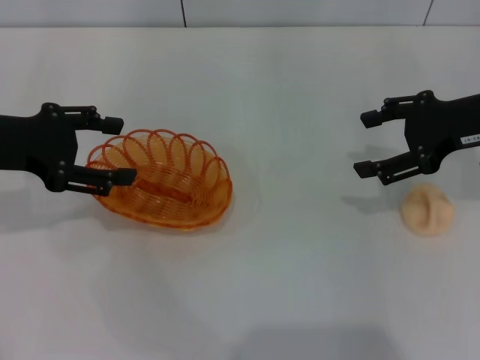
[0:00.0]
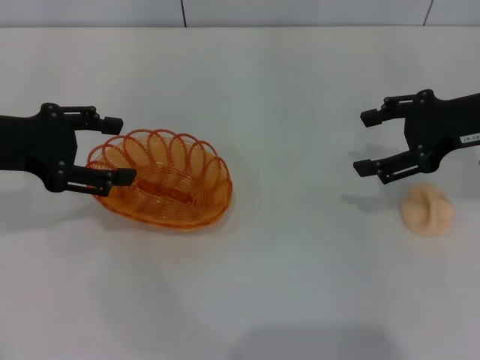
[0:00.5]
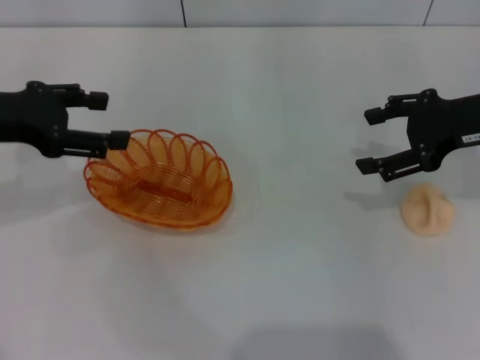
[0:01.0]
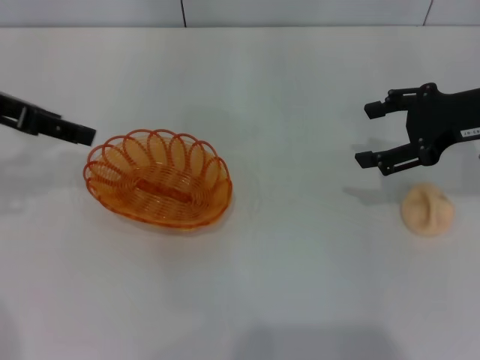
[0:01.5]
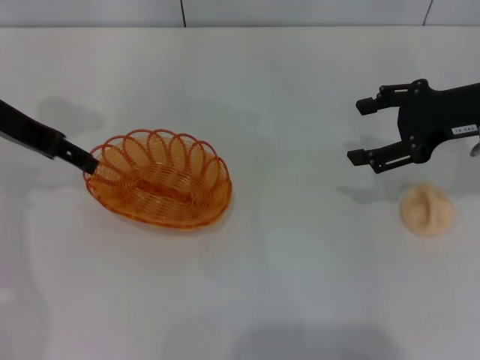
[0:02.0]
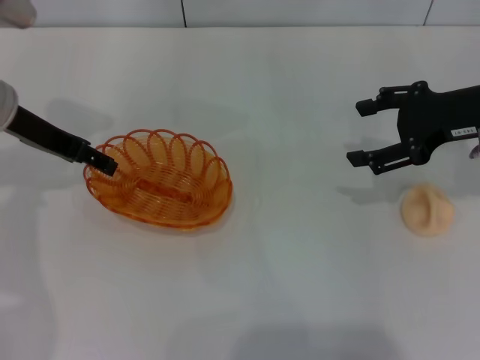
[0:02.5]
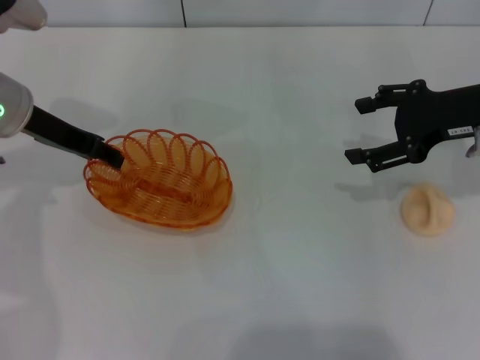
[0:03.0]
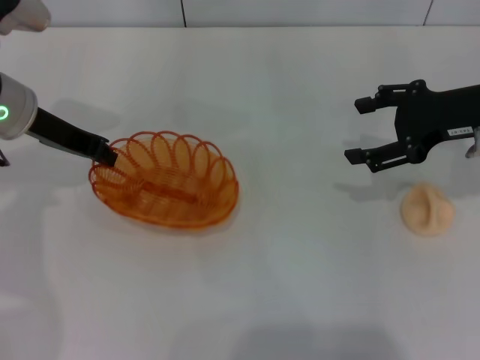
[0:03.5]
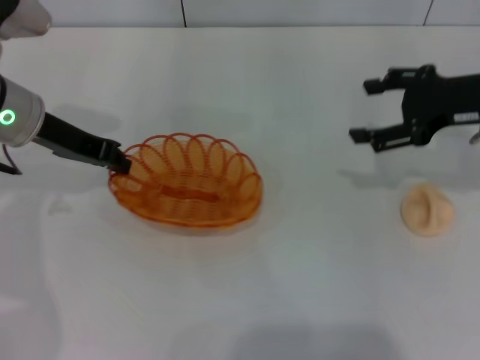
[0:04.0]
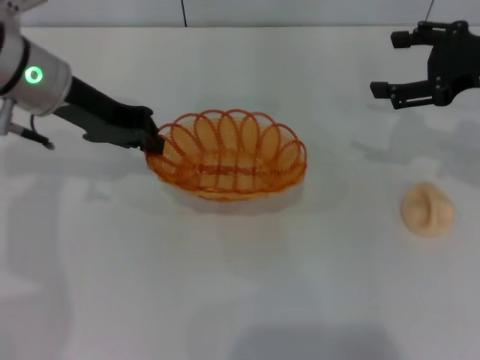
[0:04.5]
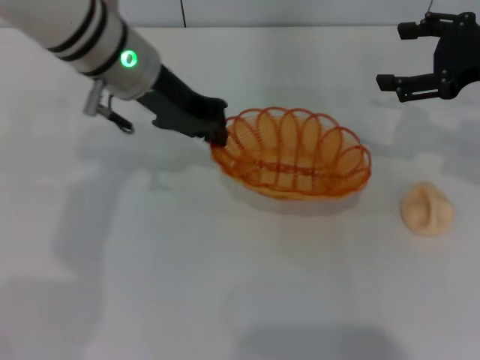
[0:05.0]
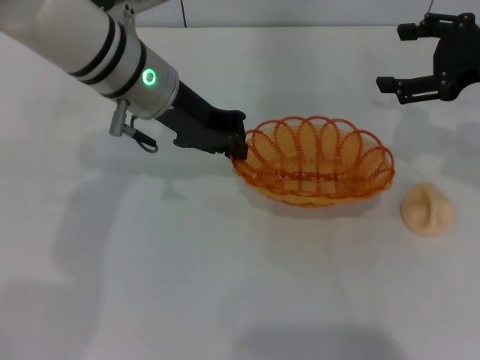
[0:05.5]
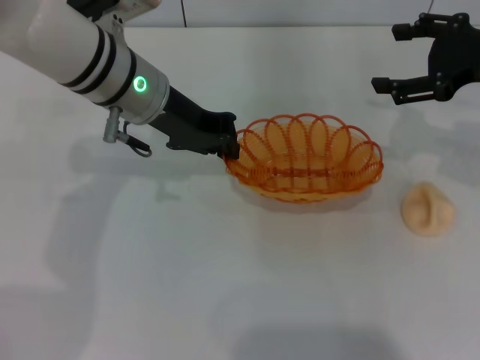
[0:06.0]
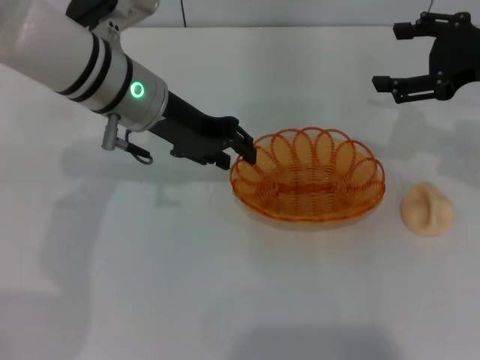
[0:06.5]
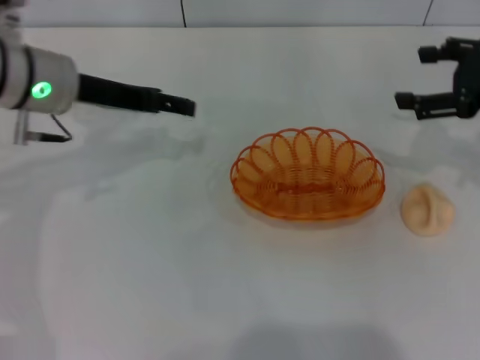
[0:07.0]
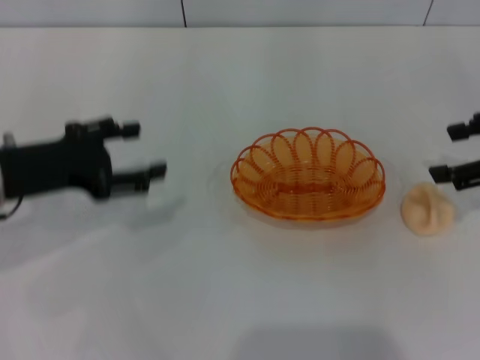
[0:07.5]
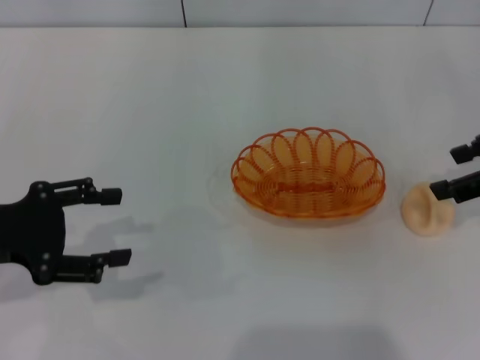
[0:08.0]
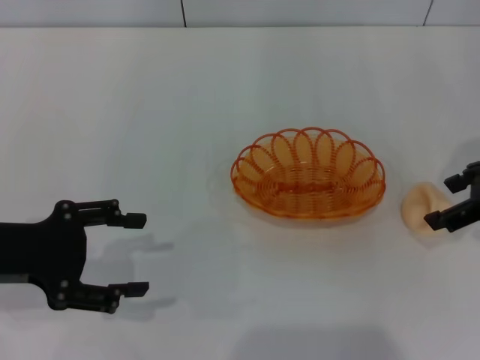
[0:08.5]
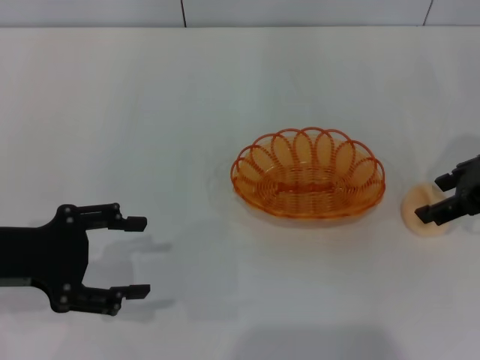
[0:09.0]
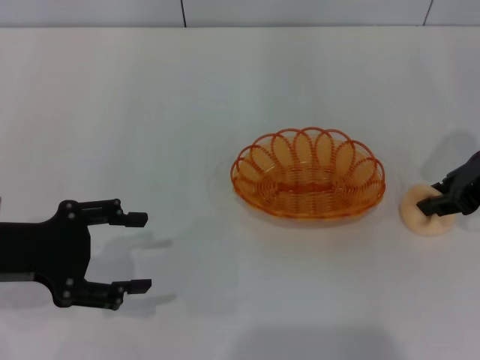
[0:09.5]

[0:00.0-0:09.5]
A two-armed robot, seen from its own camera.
Step, 0:00.0 to 0:04.0: Pick up the basket with the left gripper.
Step, 0:04.5 to 0:06.5: Place the basket in the center of view with the left gripper.
0:00.0 to 0:02.0: The left gripper heads forward, covering roughly 5 cm.
0:02.0 to 0:04.0: The left gripper shifts by some 5 cm, and closes its fingers.
0:04.0 to 0:05.5: The left gripper travels to the right by about 10 cm.
0:05.5 to 0:07.5: The right gripper goes about 5 cm backward. Meanwhile the left gripper travels to the left and backward by some 20 cm, and opens up.
0:07.5 to 0:09.5: The left gripper shifts roughly 5 cm backward; the right gripper changes place by some 5 cm, and closes.

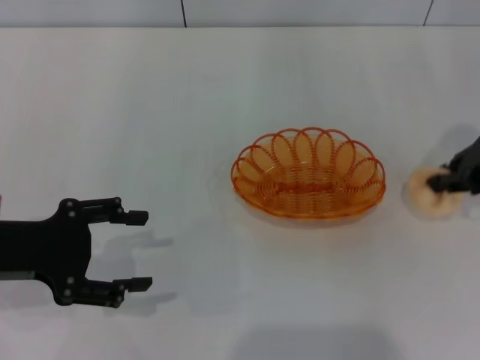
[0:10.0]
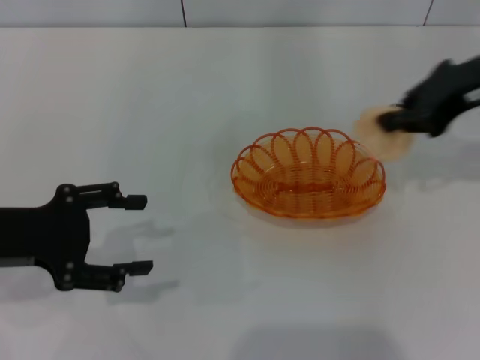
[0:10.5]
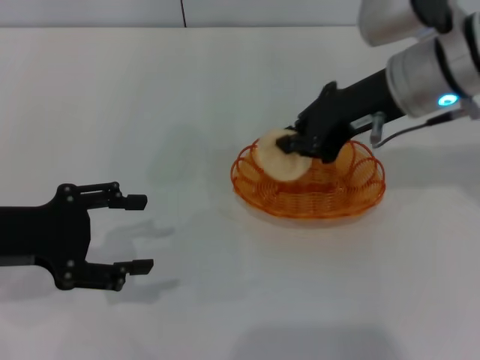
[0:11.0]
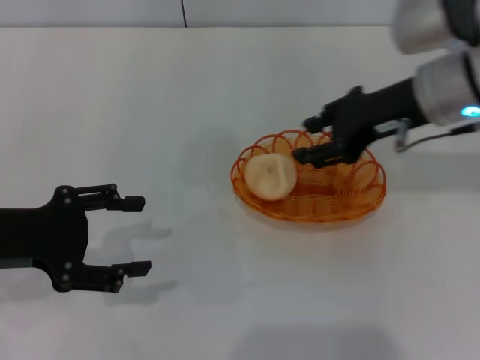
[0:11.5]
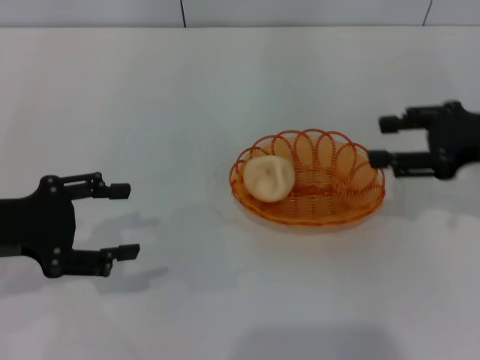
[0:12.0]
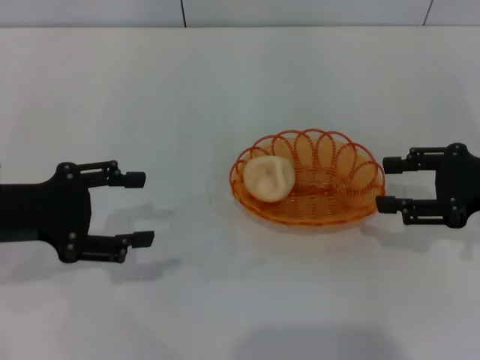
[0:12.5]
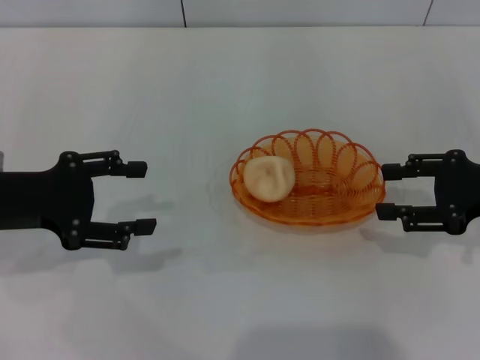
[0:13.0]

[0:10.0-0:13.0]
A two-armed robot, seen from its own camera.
Step, 0:10.5 to 0:12.0: Place the egg yolk pastry into the basket with the right gripper.
0:10.0 to 0:11.5: The right gripper is displaced to the left by some 10 cm.
0:11.5 to 0:13.0: The right gripper moves to the right, downward and backward, about 15 cm, and opens its fingers.
